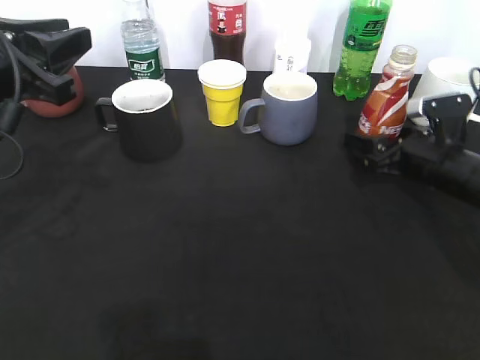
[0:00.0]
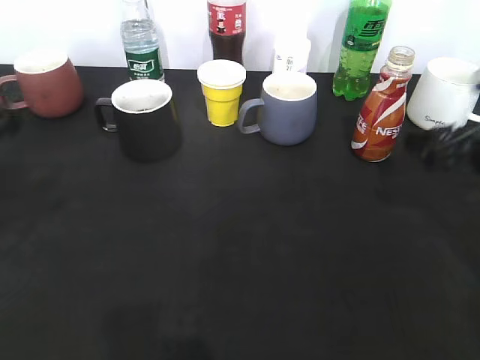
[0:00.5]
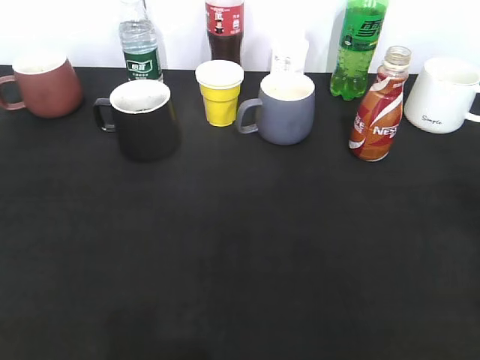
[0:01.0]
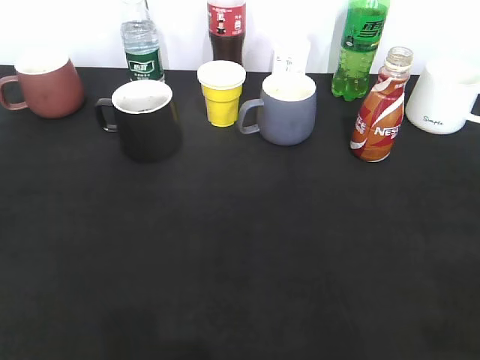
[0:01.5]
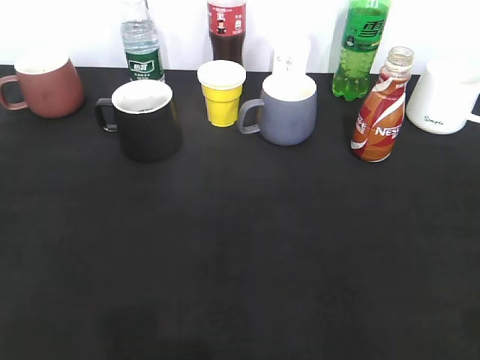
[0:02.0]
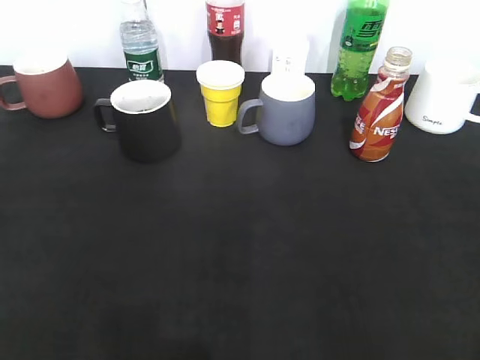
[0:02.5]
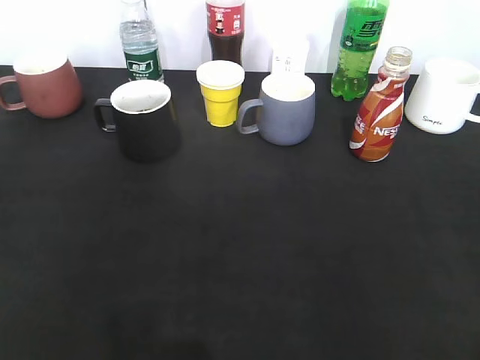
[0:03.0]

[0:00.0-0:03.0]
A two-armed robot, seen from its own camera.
0:00.0 to 0:01.5: The right gripper heads backward and upward, covering about 35 cm, and closes its fingers; the left gripper heads backward, covering some 25 cm, and opens its fingers.
0:01.5 to 0:03.0: The right gripper moves backward, approximately 5 cm, while the left gripper closes up.
